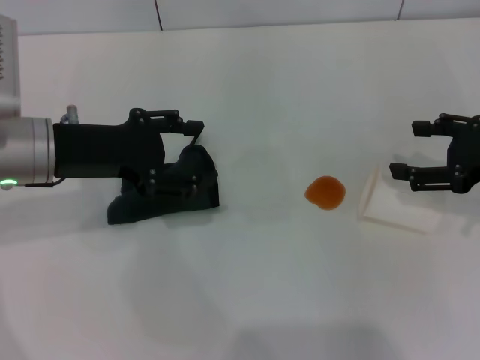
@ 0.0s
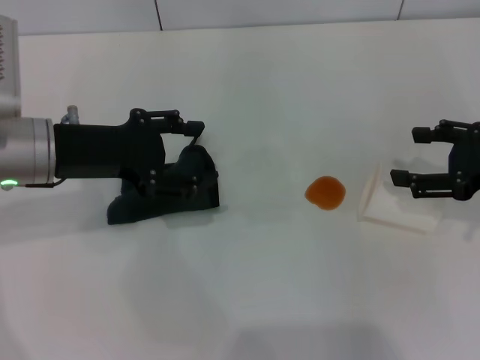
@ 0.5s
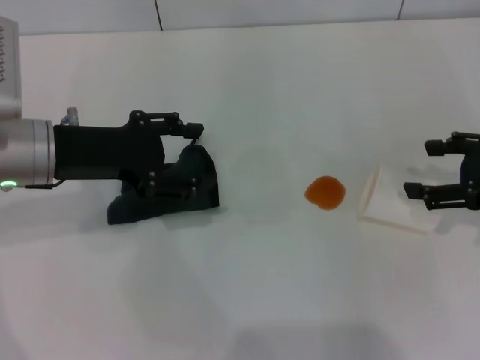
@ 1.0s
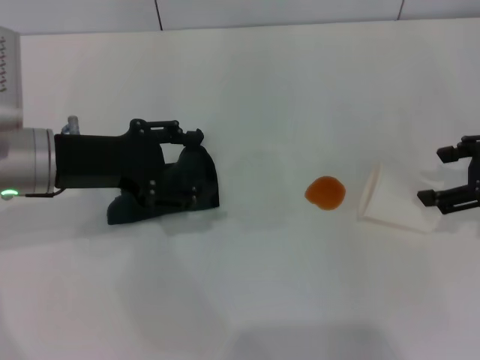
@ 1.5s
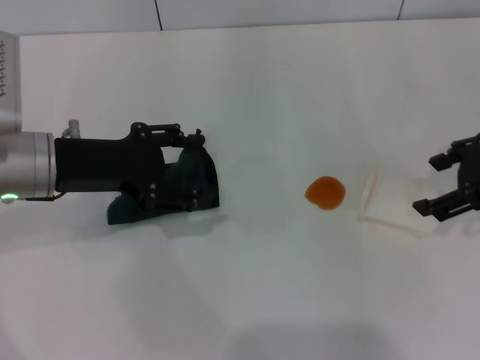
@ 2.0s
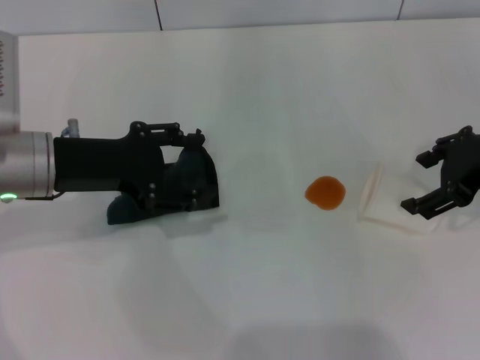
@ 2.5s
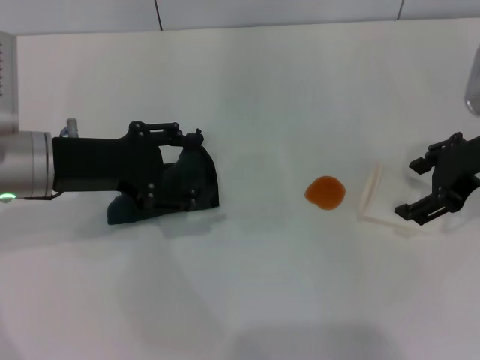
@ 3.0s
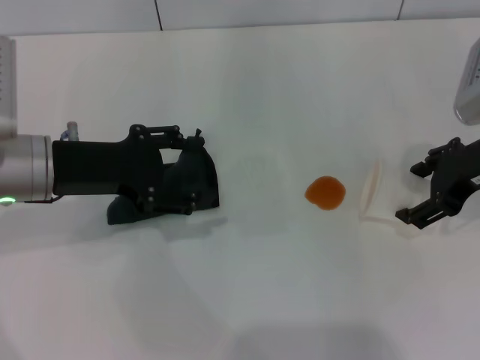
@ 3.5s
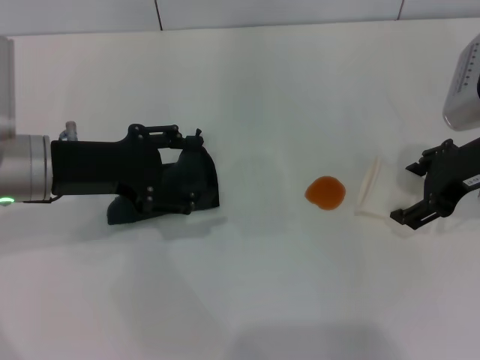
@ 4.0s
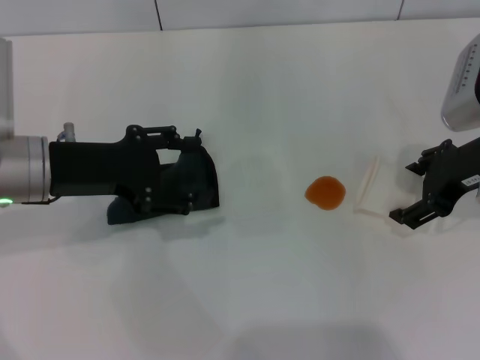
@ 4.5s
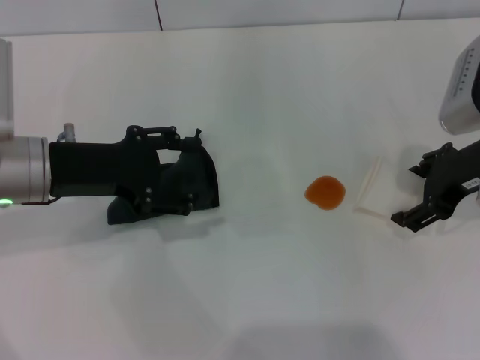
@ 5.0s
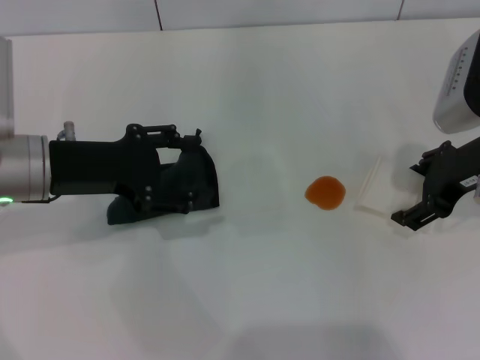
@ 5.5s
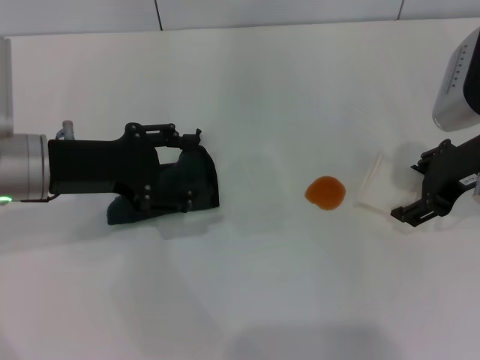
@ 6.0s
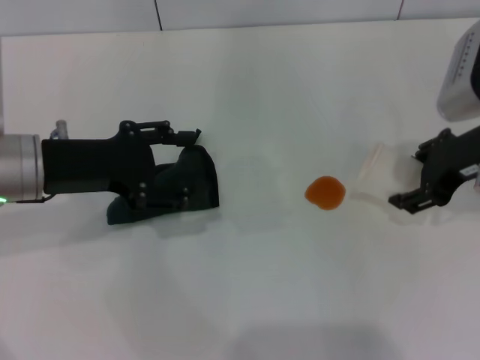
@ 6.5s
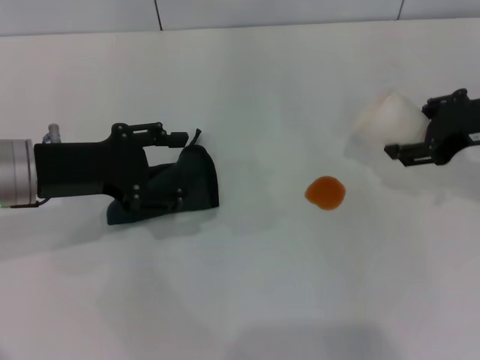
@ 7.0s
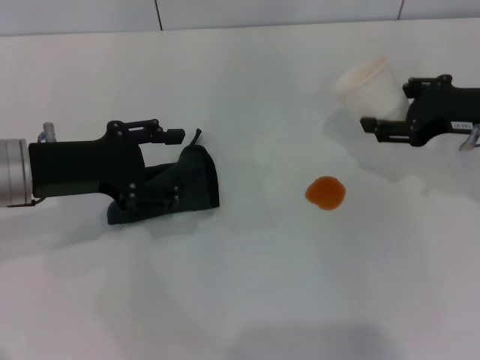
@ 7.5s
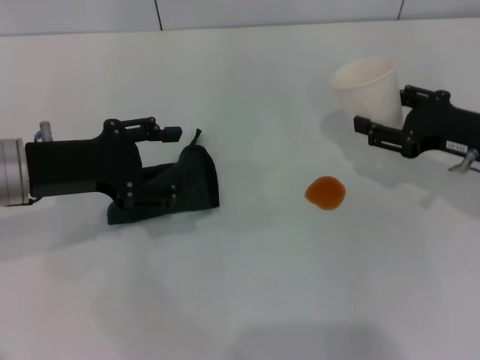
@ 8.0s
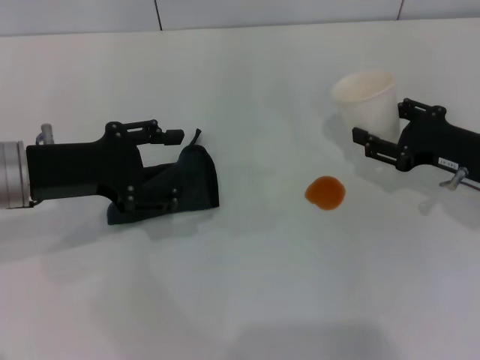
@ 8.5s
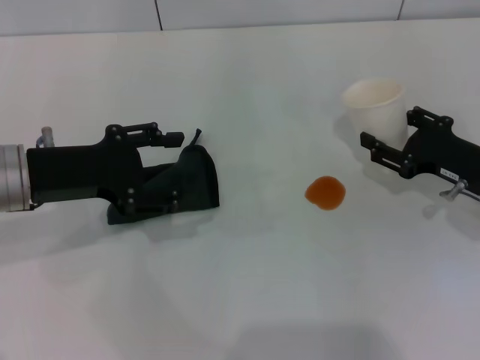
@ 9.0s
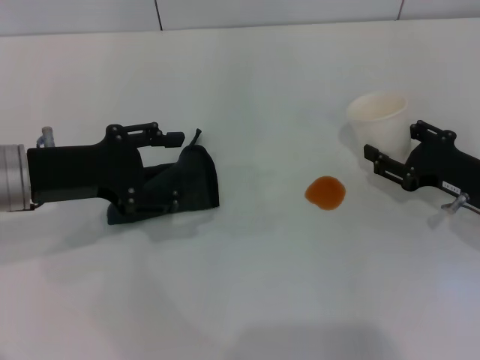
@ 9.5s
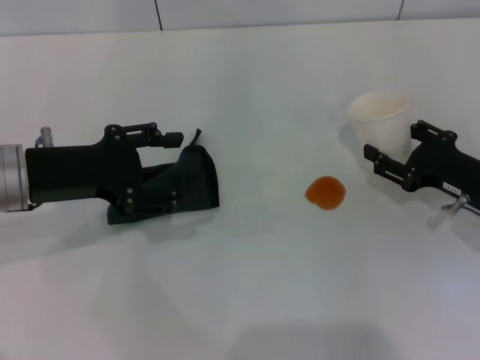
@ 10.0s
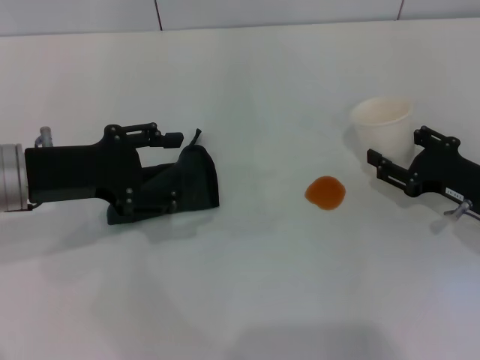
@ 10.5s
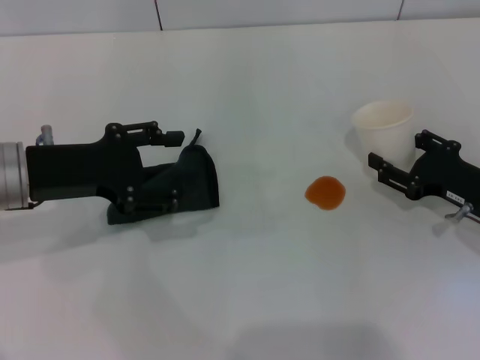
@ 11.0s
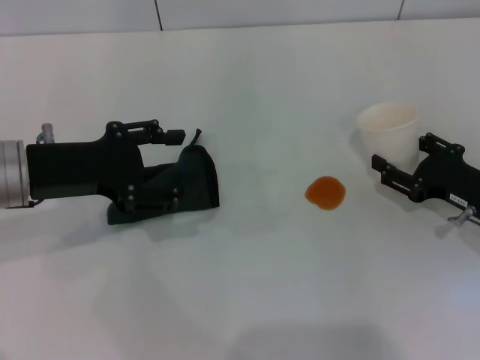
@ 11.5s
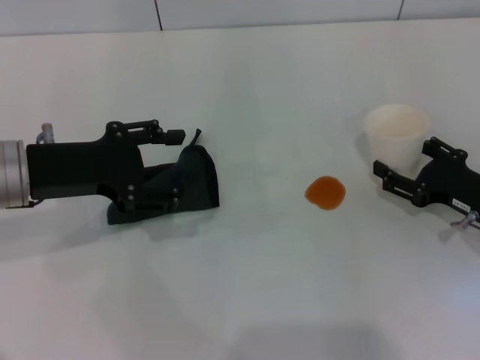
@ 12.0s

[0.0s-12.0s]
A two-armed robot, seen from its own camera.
Step, 0.0s to 6.0s: Grasp the paper cup with the right gripper.
0.0s to 2.0s: The right gripper goes some 5 cm upward.
2.0s to 4.0s: There are only small adjustments of the grippers.
4.0s to 6.0s: Both grippers stay about where they are.
6.0s to 8.0s: The right gripper shifts about 5 cm downward, and closes its fingers.
8.0s to 10.0s: The right gripper moves downward, some 5 cm.
10.0s to 12.0s: The right gripper opens its fingers.

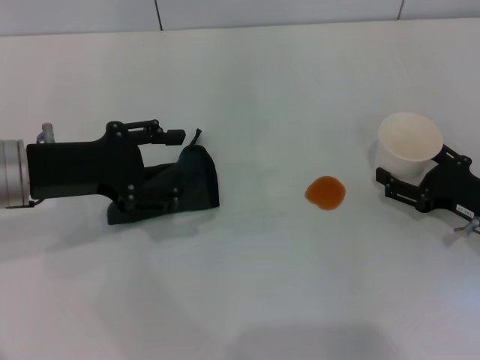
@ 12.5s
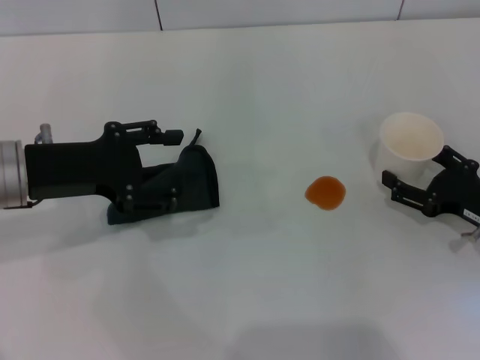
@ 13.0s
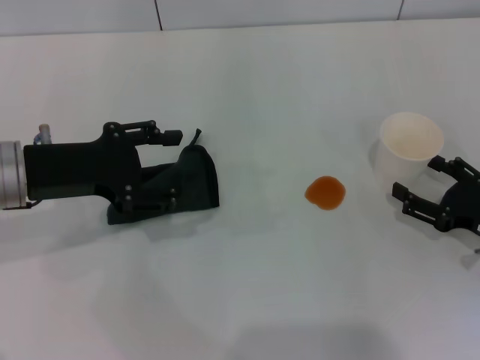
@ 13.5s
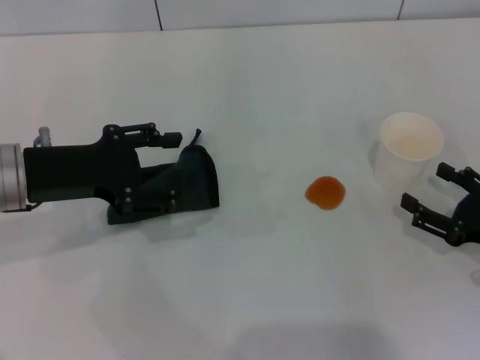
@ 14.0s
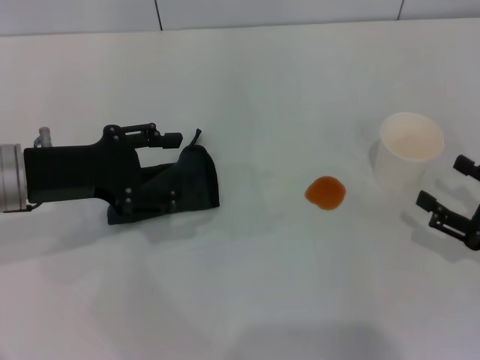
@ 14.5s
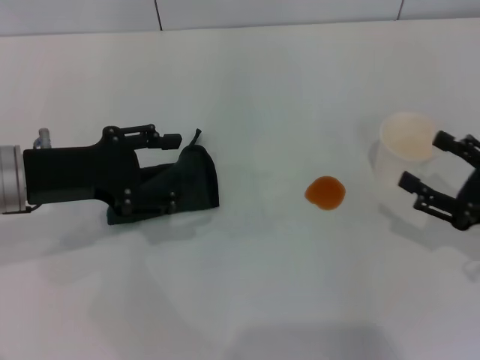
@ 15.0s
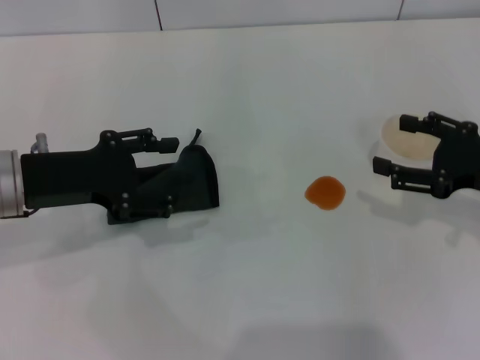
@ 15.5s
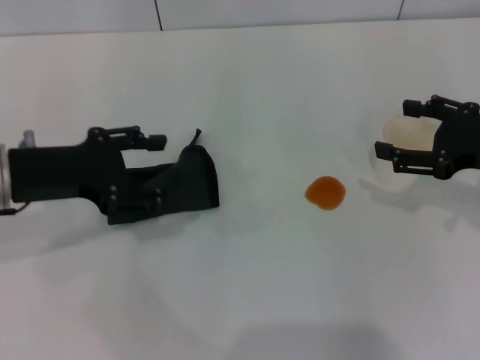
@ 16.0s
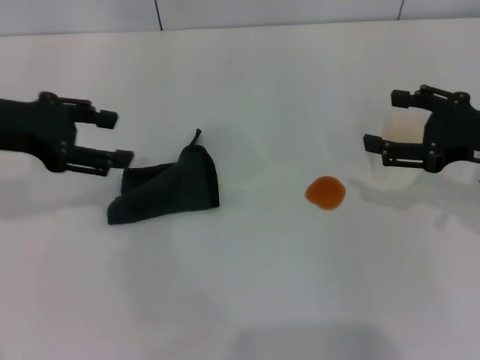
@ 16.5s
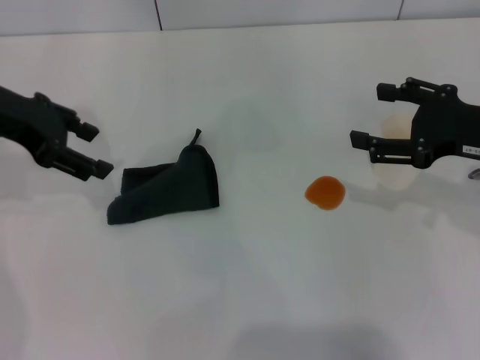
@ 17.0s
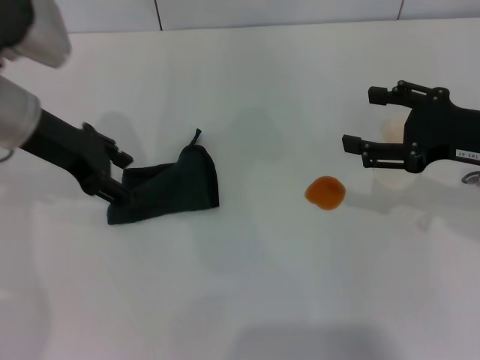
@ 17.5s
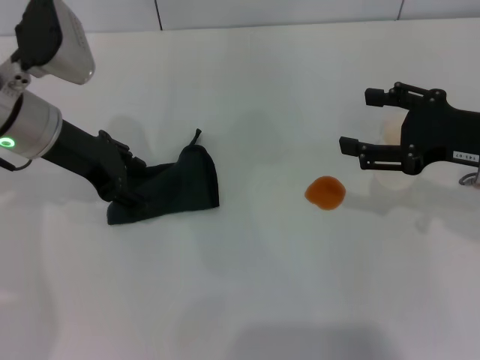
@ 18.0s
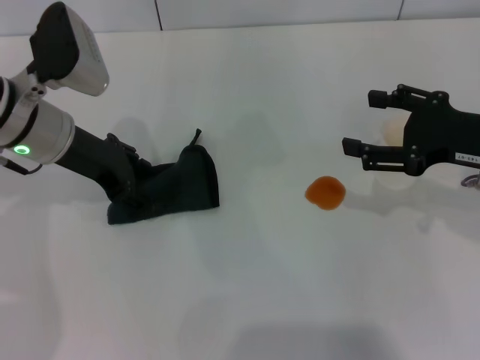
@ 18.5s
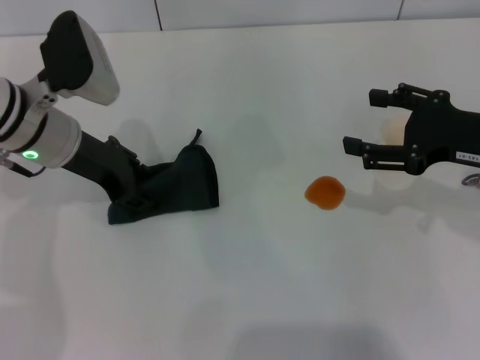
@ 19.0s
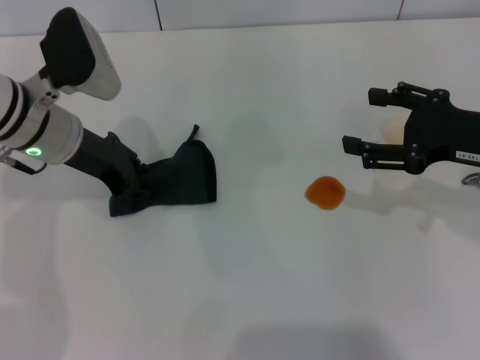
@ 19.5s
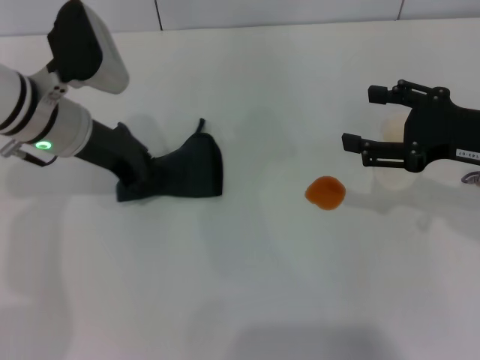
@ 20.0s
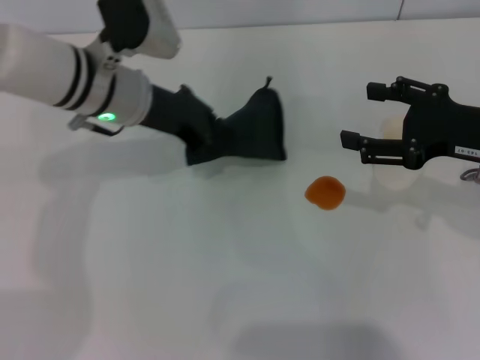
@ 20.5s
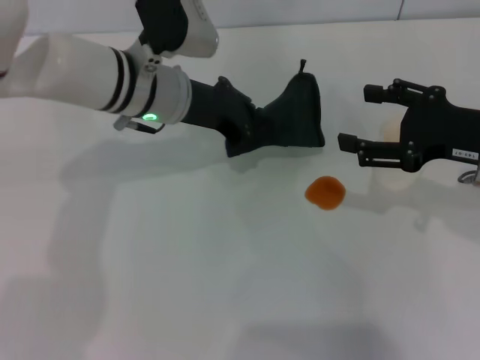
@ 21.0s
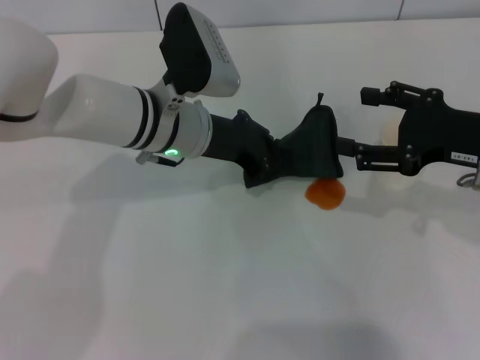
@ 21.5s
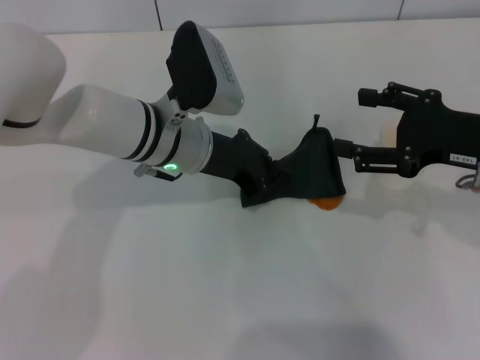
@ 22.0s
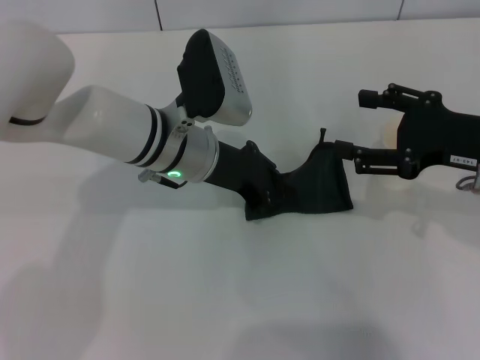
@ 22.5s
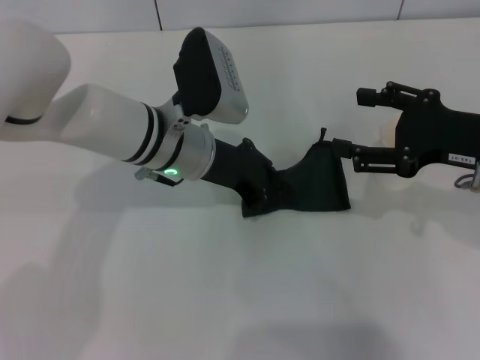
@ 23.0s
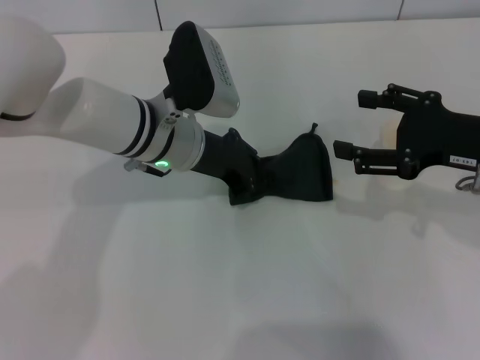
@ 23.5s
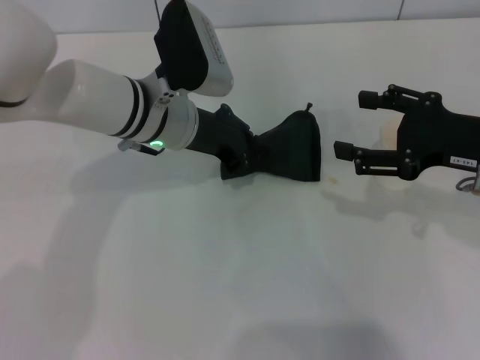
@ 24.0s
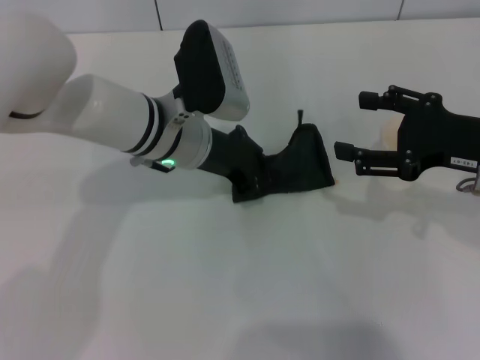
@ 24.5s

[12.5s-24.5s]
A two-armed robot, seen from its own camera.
Step, 14.0s to 19.5s: Grasp the rag with the left gripper.
12.5s to 14.5s: The right gripper shifts roughly 5 cm backward.
14.5s to 16.5s: The right gripper goes roughly 15 cm upward and forward, while the left gripper moves upward, some 5 cm.
16.5s to 18.5s: The left gripper goes about 10 cm to the right and downward.
18.5s to 20.5s: The left gripper heads to the right, covering roughly 5 cm, and closes its fingers.
20.5s to 22.5s: The left gripper is displaced to the right by some 5 cm.
22.5s to 24.5s: The grippers make only small movements.

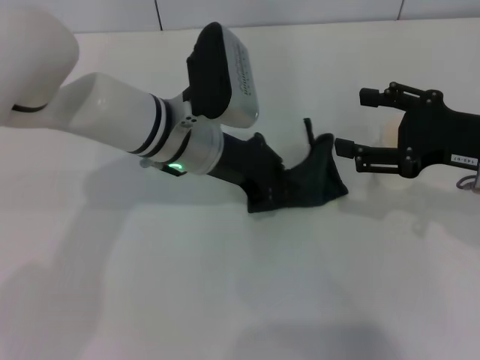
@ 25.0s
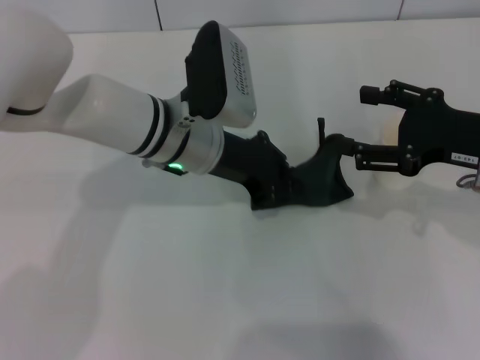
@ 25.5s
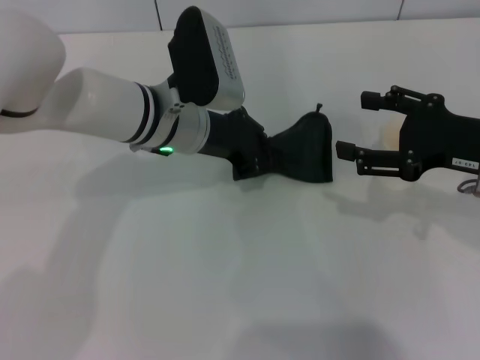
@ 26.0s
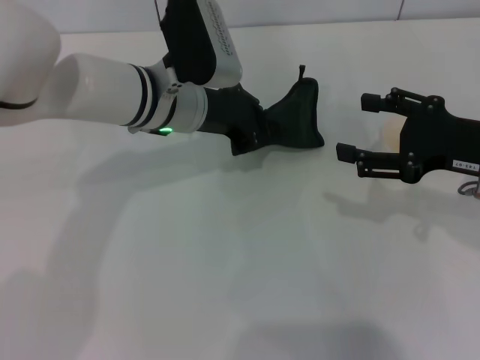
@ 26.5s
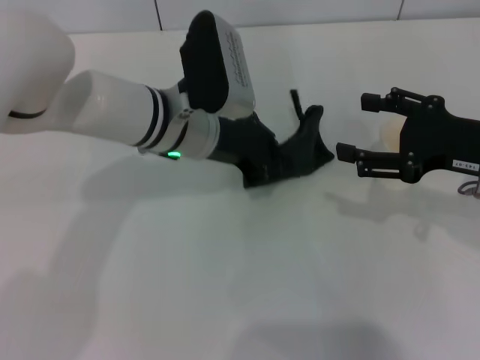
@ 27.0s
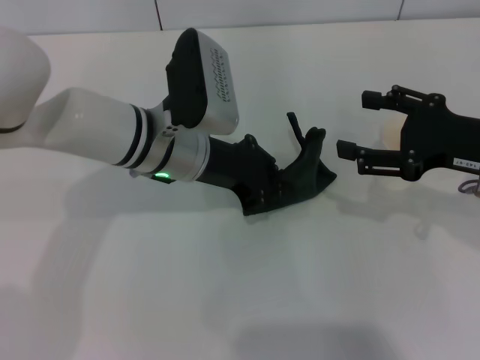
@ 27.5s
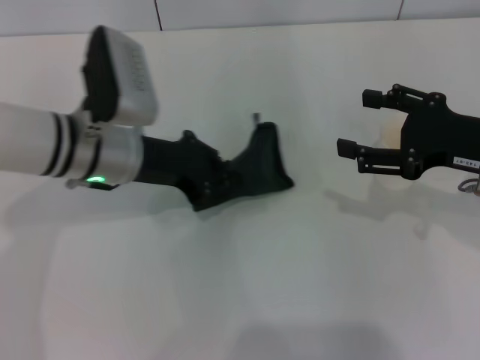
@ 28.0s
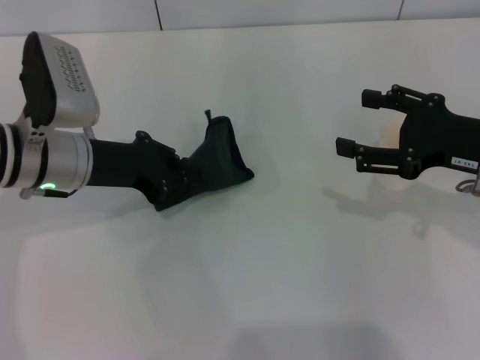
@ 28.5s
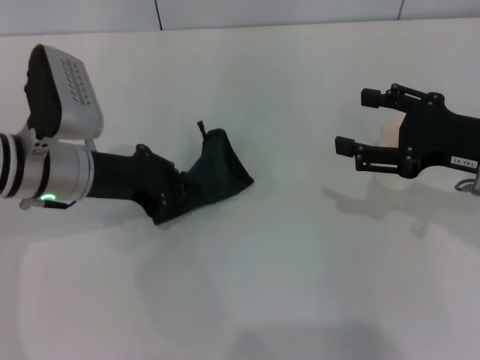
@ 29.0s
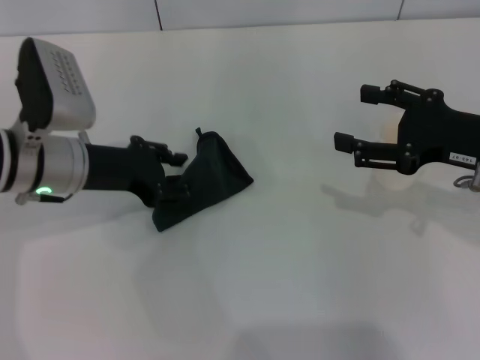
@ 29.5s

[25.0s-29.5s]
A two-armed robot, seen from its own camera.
Step, 25.0s to 29.0s: Wipe the stains off the table with the left gripper.
25.0s to 27.0s: The grippers stay close to where they were, moving slightly.
27.0s to 29.5s: The left gripper moves to the left, roughly 15 cm.
